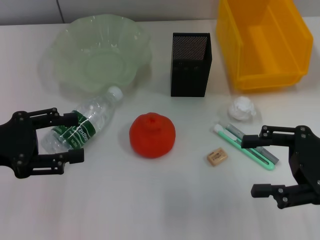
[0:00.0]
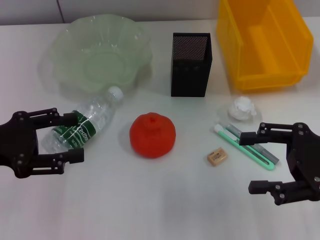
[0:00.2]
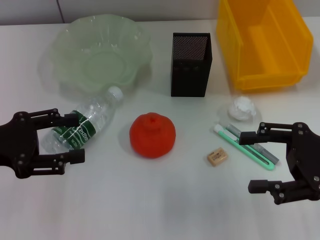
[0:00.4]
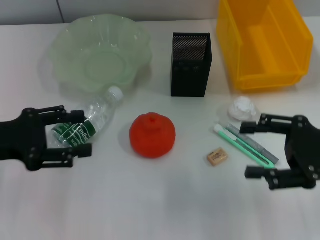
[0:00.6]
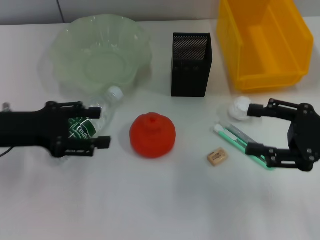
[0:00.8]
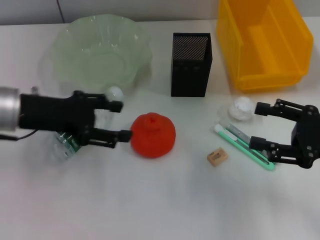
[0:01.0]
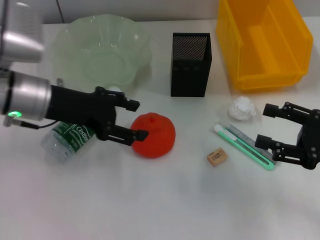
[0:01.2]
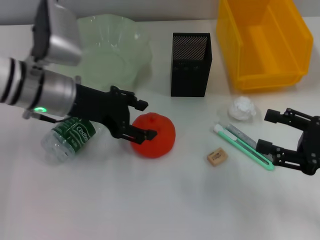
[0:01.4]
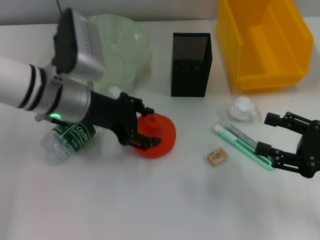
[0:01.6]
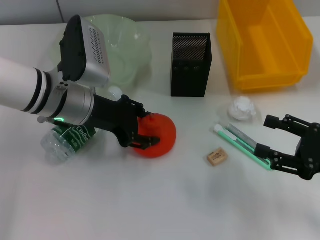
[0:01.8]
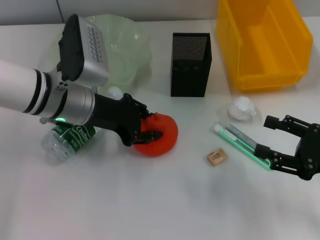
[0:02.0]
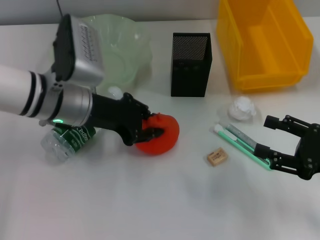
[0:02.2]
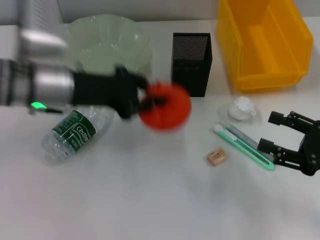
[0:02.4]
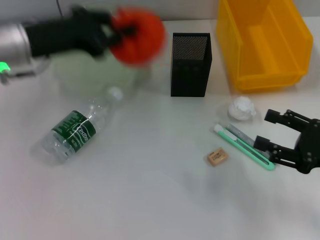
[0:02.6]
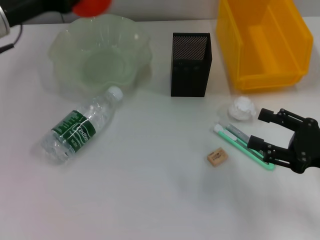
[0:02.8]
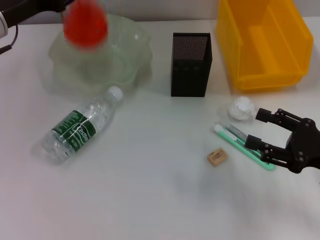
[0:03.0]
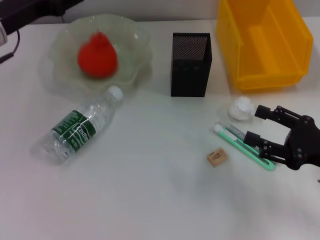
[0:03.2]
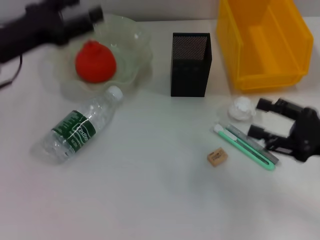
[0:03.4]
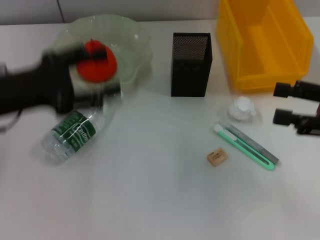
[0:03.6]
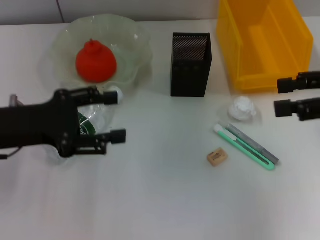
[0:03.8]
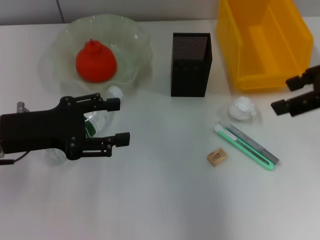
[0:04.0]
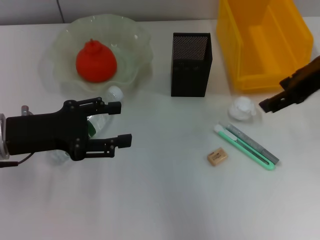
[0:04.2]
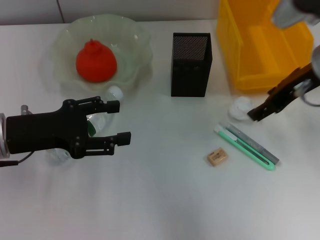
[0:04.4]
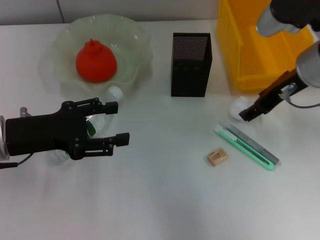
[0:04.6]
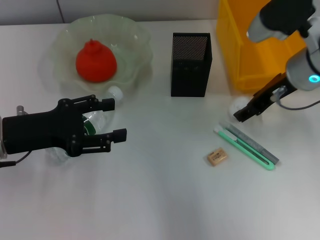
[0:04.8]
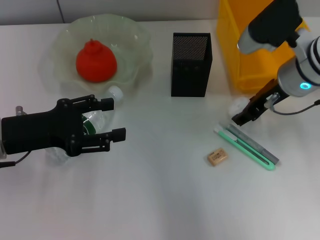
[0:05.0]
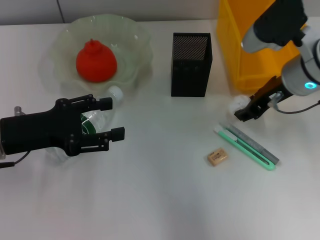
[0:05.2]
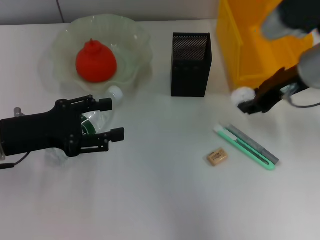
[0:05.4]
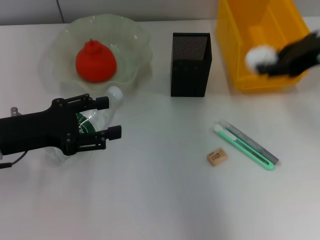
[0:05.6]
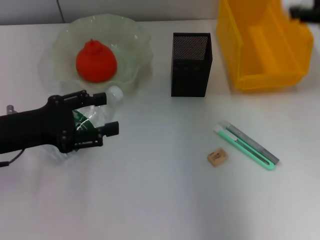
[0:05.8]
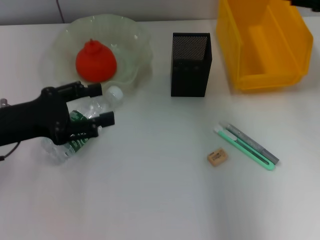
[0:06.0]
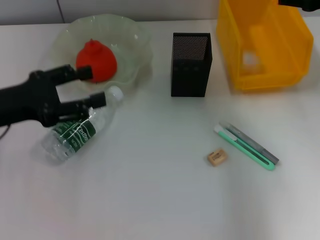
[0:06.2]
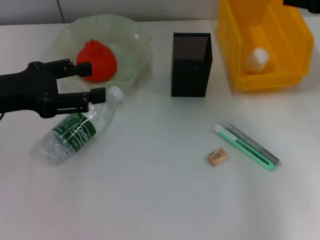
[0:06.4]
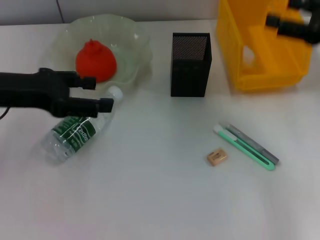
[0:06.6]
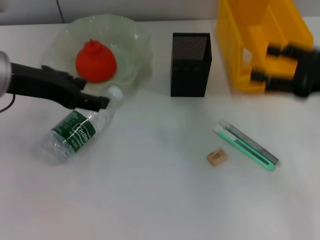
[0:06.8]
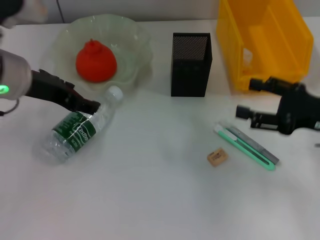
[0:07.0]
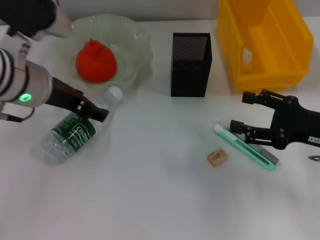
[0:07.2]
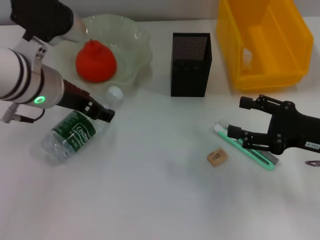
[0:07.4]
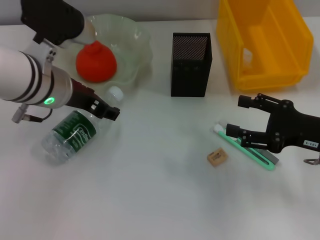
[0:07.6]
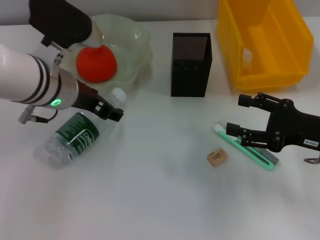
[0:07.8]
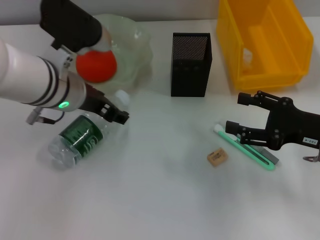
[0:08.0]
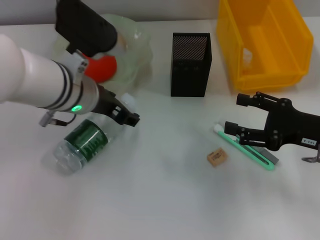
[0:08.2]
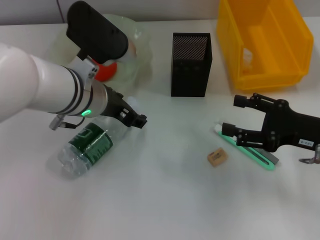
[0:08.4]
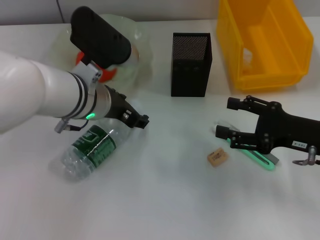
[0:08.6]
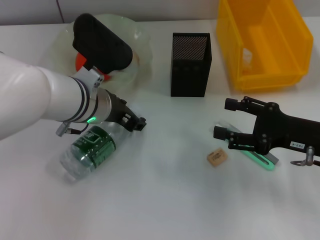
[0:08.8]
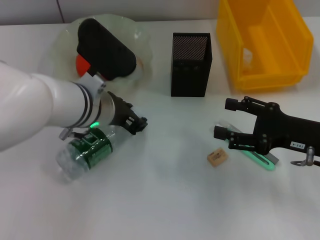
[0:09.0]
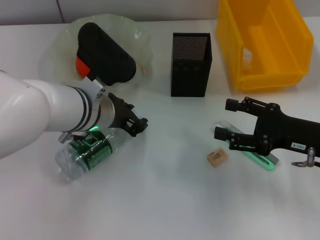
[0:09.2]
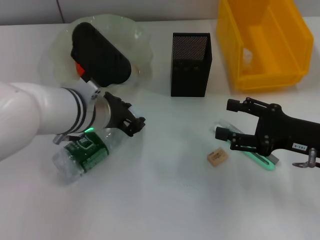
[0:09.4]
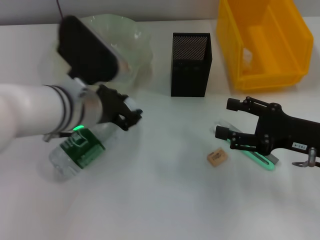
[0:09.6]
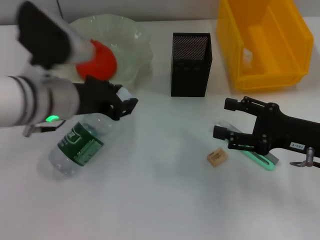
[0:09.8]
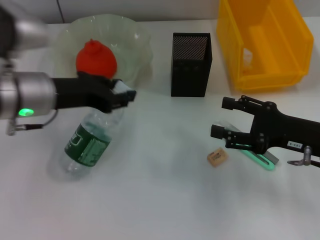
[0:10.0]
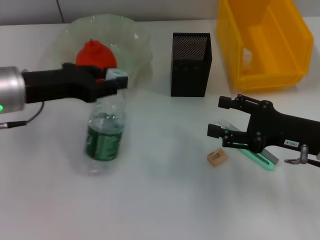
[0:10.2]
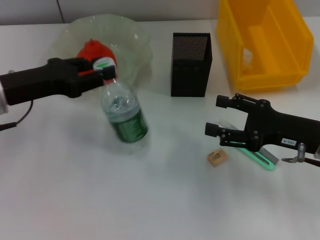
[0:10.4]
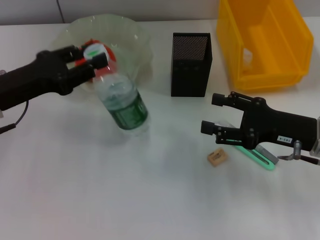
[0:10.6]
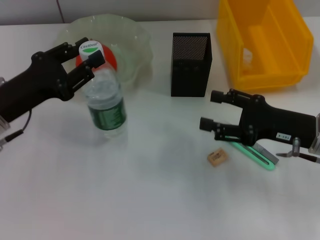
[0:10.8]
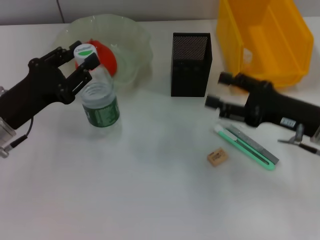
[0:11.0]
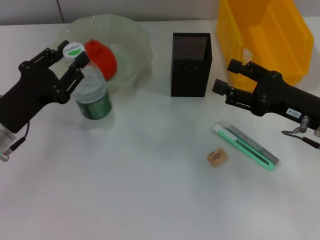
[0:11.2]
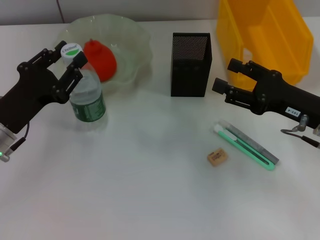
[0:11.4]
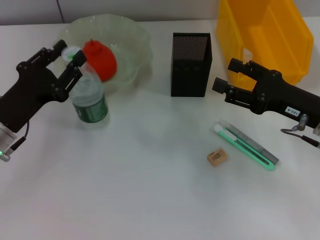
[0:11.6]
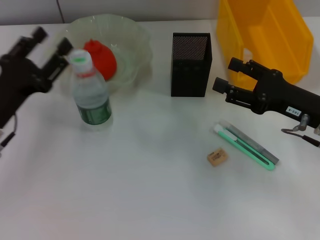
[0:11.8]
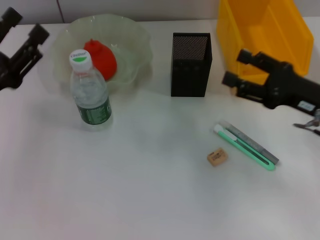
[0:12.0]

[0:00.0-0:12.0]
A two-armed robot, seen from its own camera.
Step, 0:00.0 to 0:02.0: Grab the orange with the left hand.
Step, 0:02.2 to 0:03.6: Place the orange into the fruit bowl with the left hand.
Step, 0:03.8 to 0:05.0: Grab the paper ball with the right hand.
Step, 0:05.2 to 0:06.2: Place the paper ball into the trash can with the right hand.
Step, 0:06.4 to 0:08.8: Grab the water bottle with the left hand.
0:00.0 to 0:01.6: The left gripper shifts approximately 20 cm to the right and forward. The right gripper moves about 5 cm.
0:01.6 to 0:03.0: The left gripper moves to the left, roughly 10 cm, and closes up.
0:03.0 to 0:04.4: The left gripper travels backward and downward by approximately 15 cm, and opens its fingers. The right gripper travels upward, forward and to the left by about 20 cm.
0:04.4 to 0:06.0: The right gripper moves to the right, approximately 10 cm, and moves roughly 5 cm upward and comes back.
0:06.0 to 0:07.6: The right gripper travels downward and backward by about 20 cm, and opens up. Meanwhile the left gripper is displaced to the right and forward by approximately 15 cm.
0:07.6 to 0:09.0: The left gripper ends up some 5 cm from where it was.
0:09.0 to 0:10.4: The left gripper is displaced to the left by approximately 15 cm.
0:10.4 to 0:12.0: The left gripper moves backward, approximately 5 cm, and opens up.

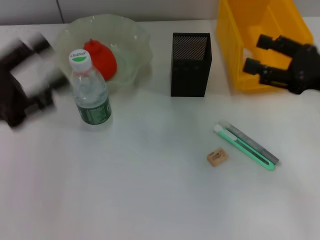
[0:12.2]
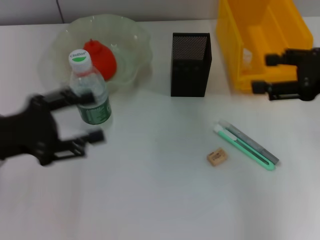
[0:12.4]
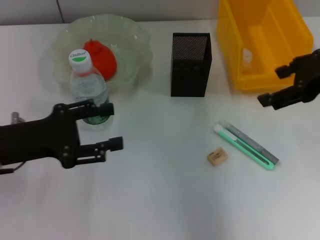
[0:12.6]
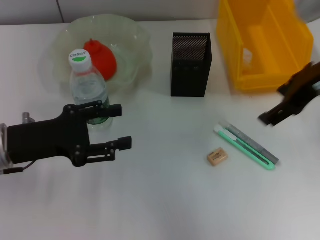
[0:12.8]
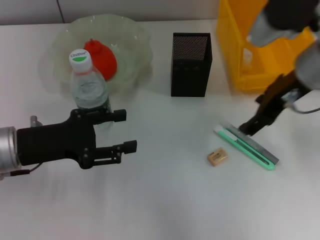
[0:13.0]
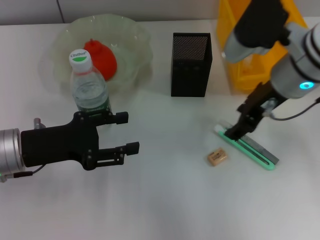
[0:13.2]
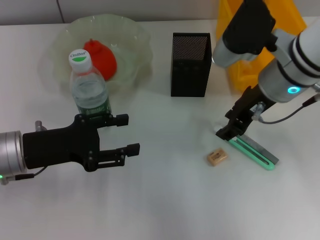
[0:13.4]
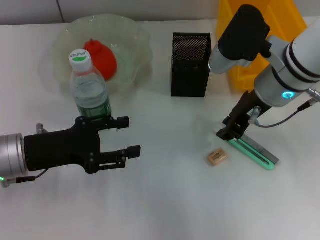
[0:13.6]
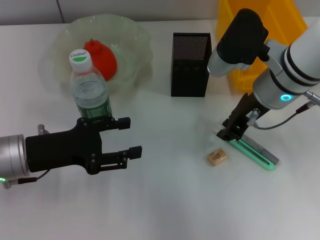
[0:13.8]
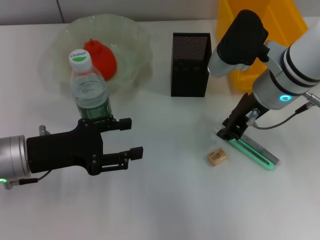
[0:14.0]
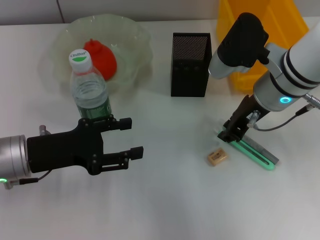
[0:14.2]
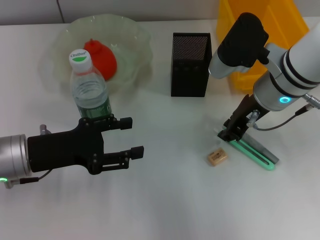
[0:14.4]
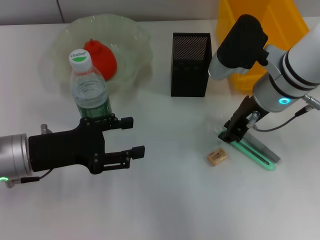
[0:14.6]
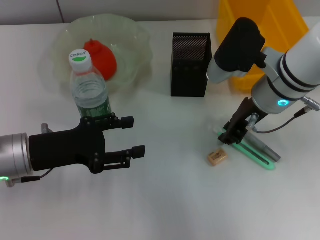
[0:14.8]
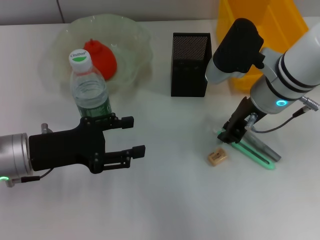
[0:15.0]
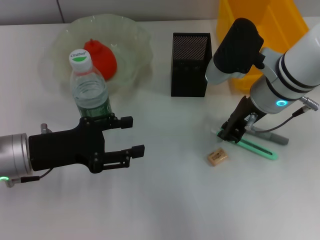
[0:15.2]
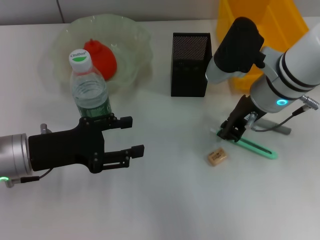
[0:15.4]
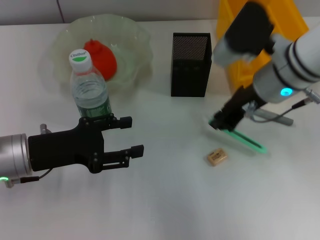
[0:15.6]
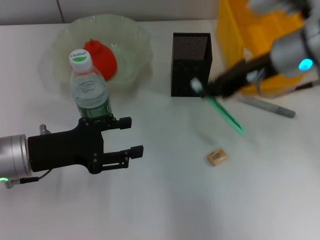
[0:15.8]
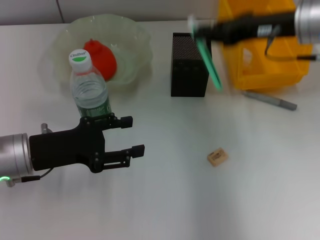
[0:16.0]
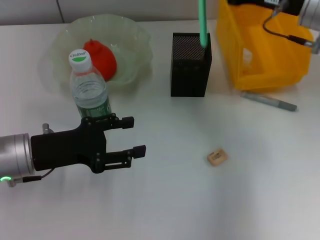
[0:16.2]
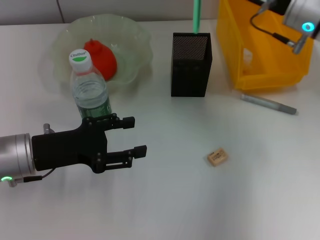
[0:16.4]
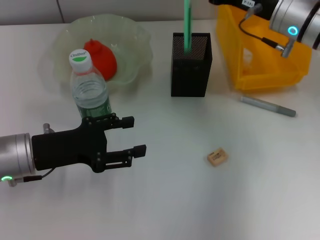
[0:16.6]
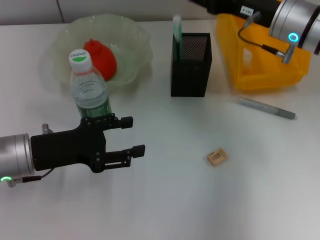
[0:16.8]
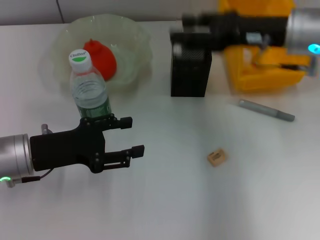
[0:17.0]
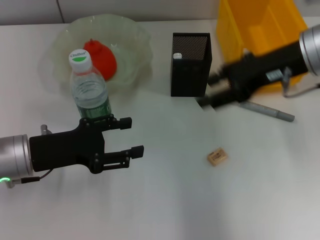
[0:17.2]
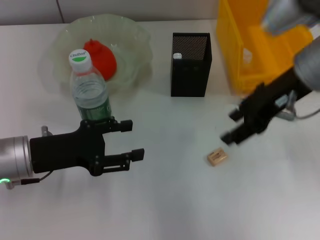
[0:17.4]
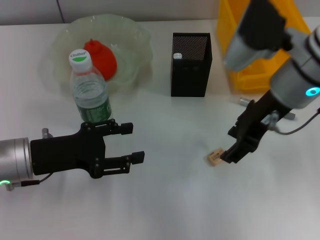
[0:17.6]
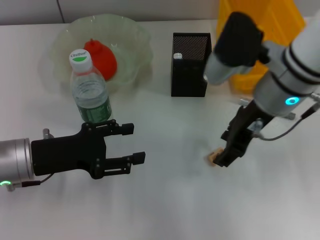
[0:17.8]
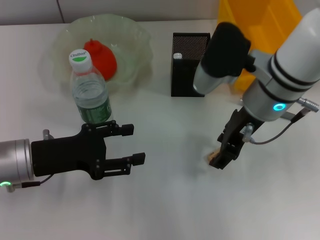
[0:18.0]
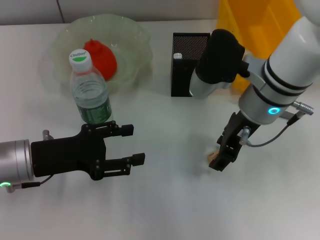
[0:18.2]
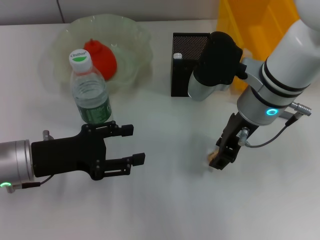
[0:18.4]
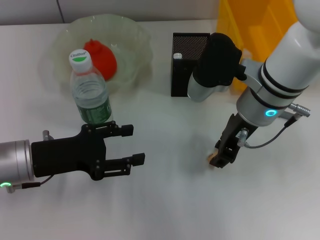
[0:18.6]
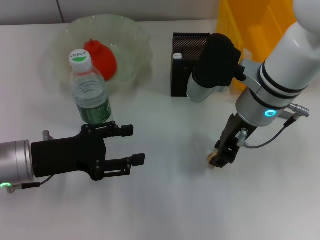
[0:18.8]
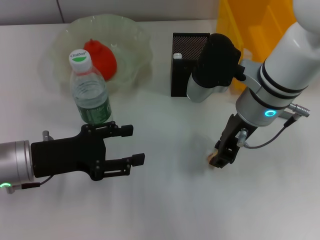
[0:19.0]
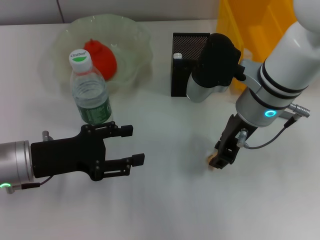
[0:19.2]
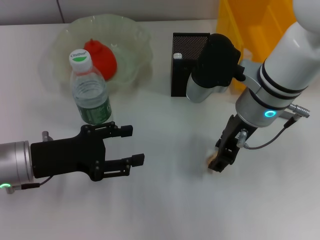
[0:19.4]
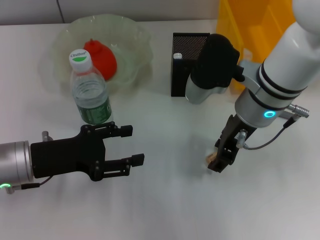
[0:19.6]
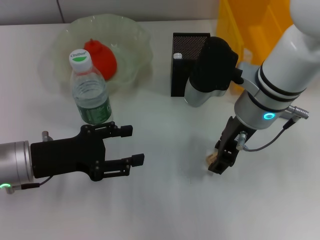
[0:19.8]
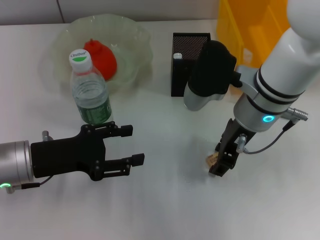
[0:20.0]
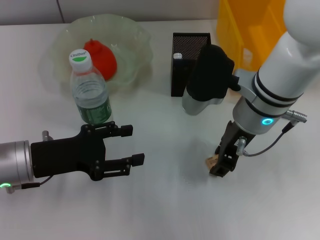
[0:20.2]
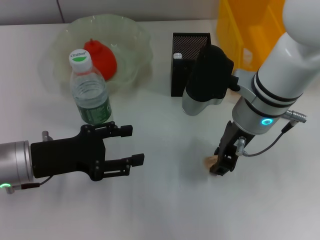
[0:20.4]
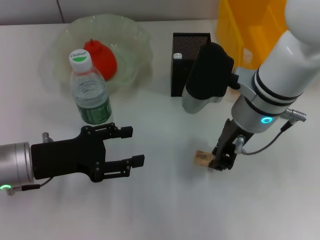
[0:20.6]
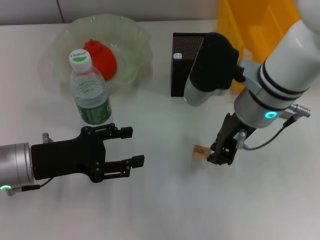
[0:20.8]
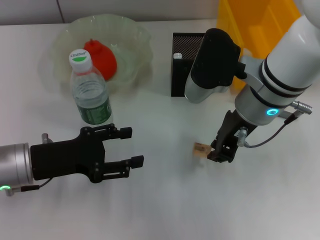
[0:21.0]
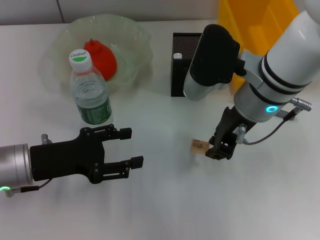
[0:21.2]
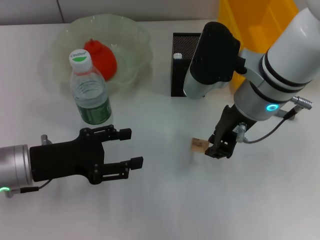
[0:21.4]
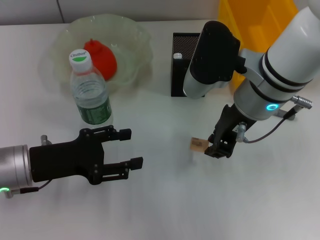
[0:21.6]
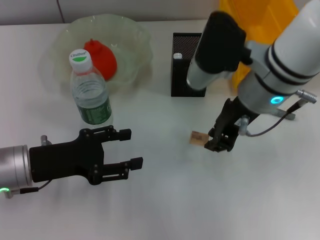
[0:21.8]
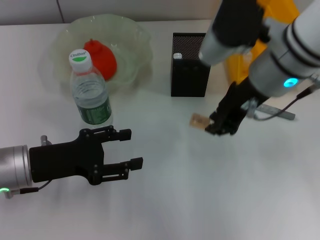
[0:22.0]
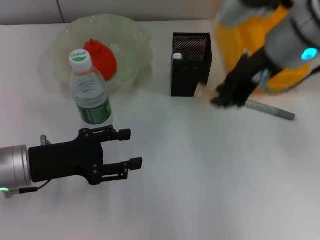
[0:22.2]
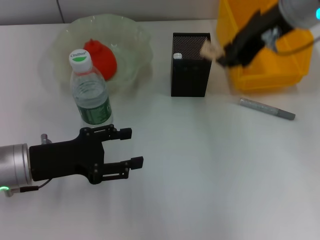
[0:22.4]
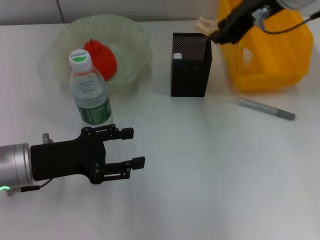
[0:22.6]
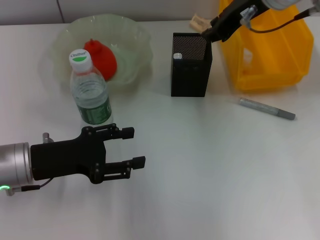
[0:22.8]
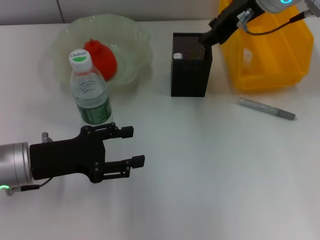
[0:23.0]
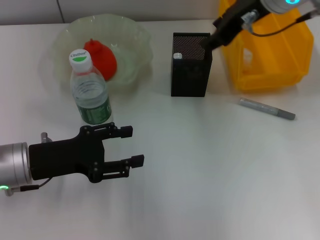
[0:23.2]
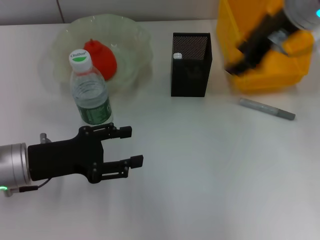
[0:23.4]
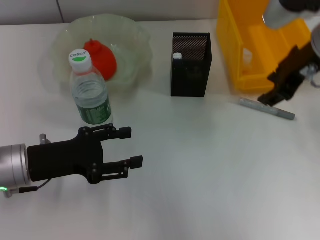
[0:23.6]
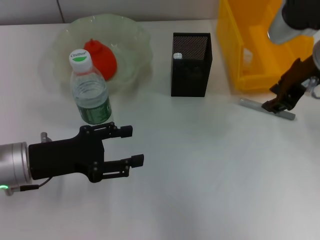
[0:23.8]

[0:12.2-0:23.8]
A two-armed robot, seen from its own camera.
Step, 0:12.4 to 0:15.4: Grab the blue utility knife with the right hand.
Step, 0:15.6 to 0:17.2: Place the blue utility knife into the pen holder with the right hand.
Step, 0:17.6 to 0:20.4: Grab the eraser with the right hand.
Step, 0:20.6 to 0:23.4: Put the eraser into the pen holder with the right hand.
0:12.2 to 0:13.6: The right gripper goes about 15 cm to the left, and closes its fingers, while the left gripper moves to the right, some 5 cm.
0:13.6 to 0:15.0: The right gripper closes up.
0:15.0 to 0:16.6: The right gripper heads forward, covering approximately 5 cm.
0:16.6 to 0:18.0: The right gripper moves backward and to the left, about 10 cm, and opens up.
0:18.0 to 0:21.0: The grippers stay close to where they were, moving slightly.
0:21.0 to 0:22.4: The right gripper goes roughly 10 cm upward.
0:22.4 to 0:23.8: The right gripper heads downward and to the right, covering about 10 cm.
